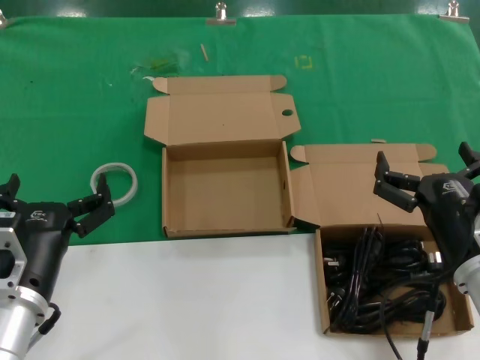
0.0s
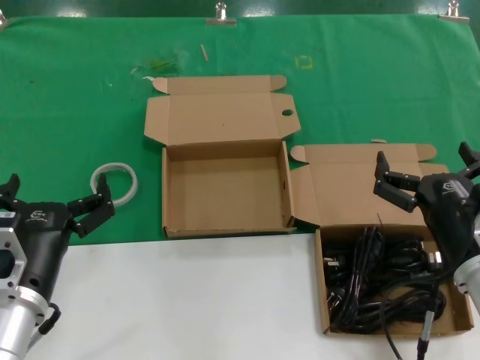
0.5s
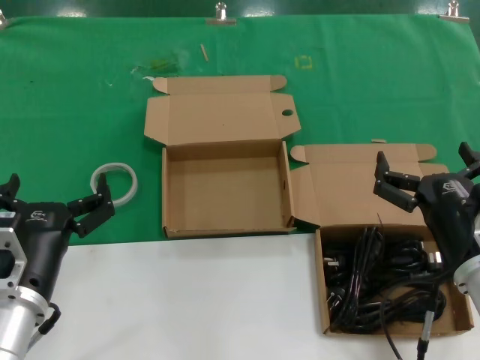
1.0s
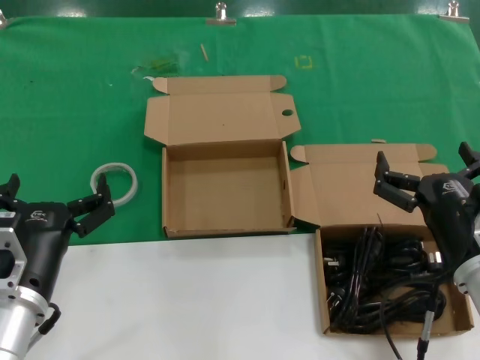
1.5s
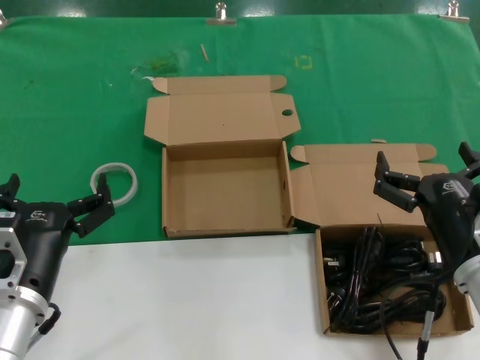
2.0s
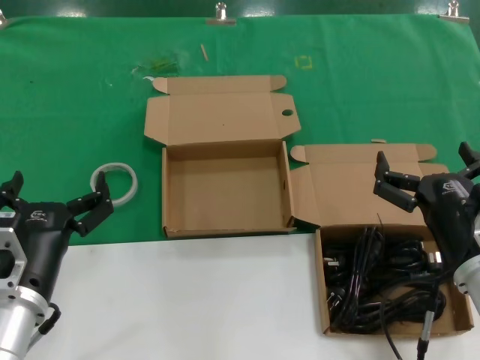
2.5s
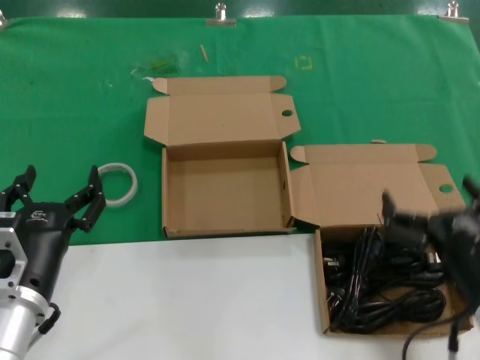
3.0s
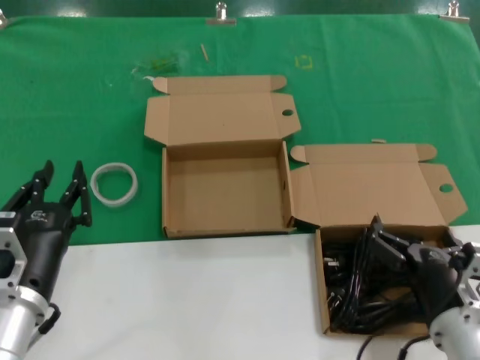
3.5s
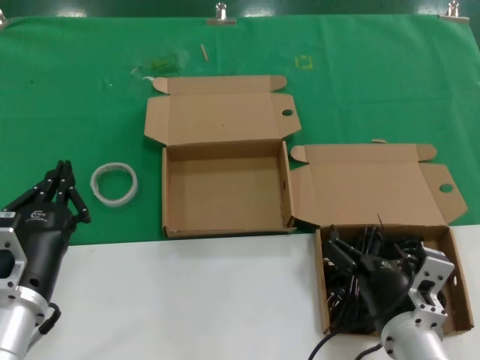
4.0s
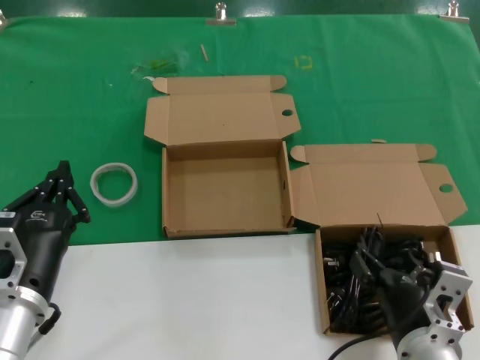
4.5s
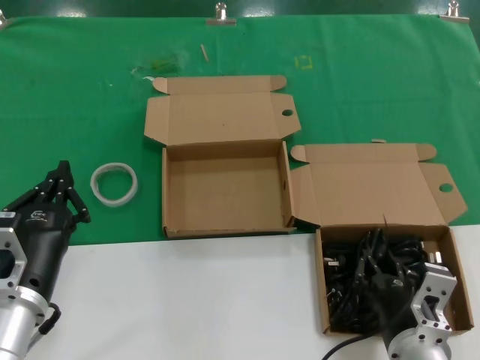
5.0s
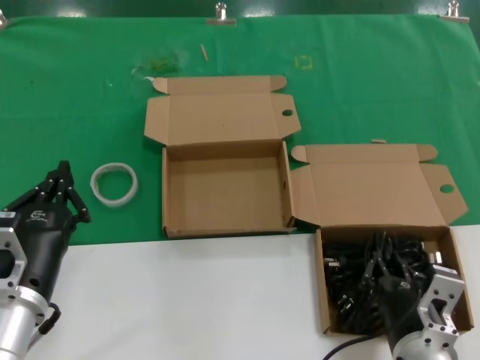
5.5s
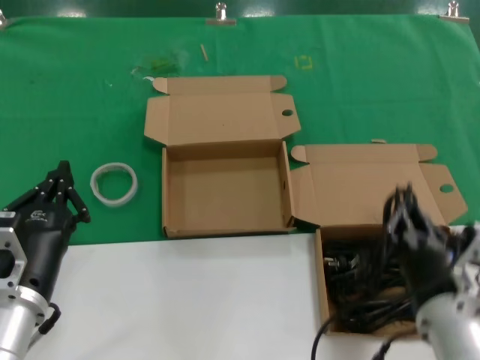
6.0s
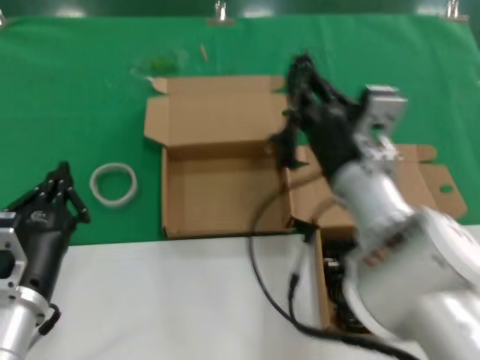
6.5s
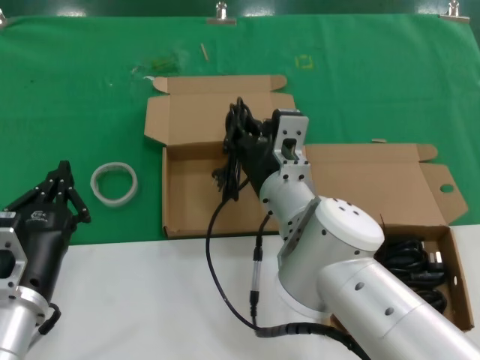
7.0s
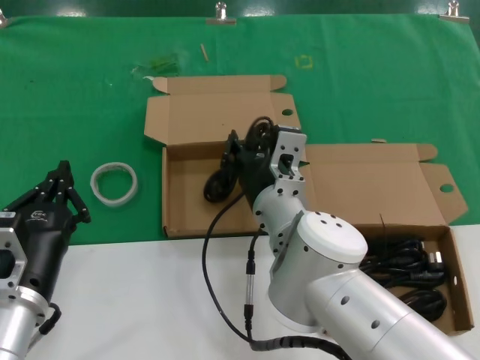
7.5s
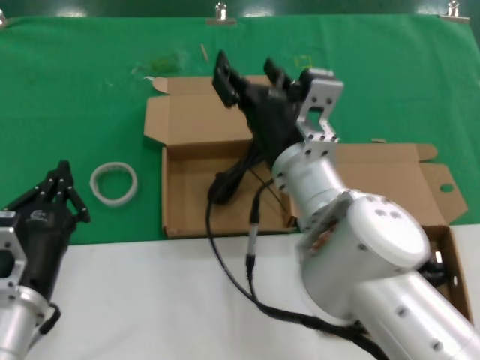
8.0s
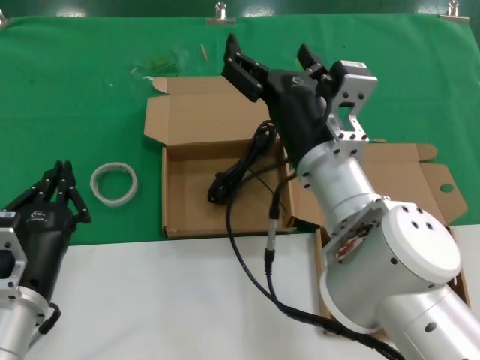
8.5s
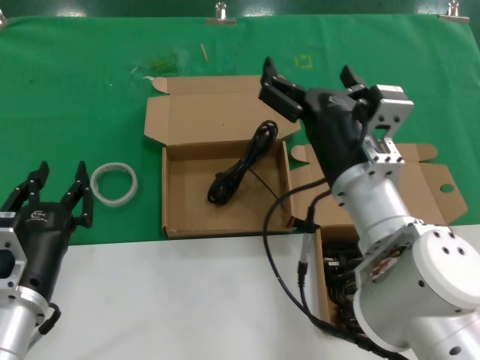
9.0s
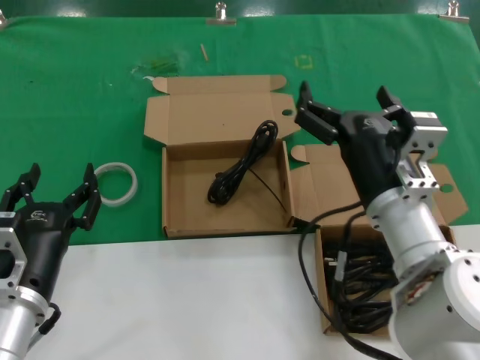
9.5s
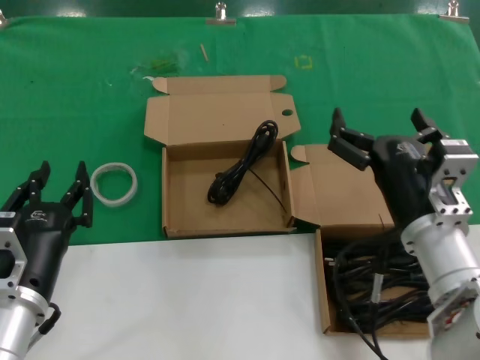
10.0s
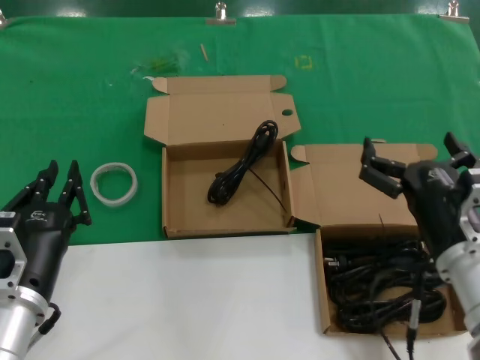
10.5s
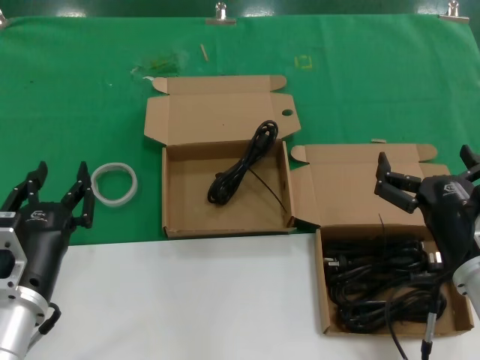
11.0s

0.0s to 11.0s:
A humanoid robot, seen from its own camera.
Task of the whole recording: Pick up the power cord from the box containing it and place it in another box.
Step, 0.0s to 5.5s: Grasp the data cable.
Step, 6.0s to 8.0s: Place the data cable in the another box.
0.0s to 2.0s: Both hands stay put.
2.0s to 3.5s: The right hand moves downward, approximately 5 cm.
3.5s to 5.5s: The right hand travels to the left by approximately 5 cm.
5.5s to 7.5s: The right hand travels forward, to the left and upward by approximately 25 cm.
7.5s to 9.0s: The right hand moves to the right, upward and backward, about 10 cm.
9.0s to 11.0s: The right hand is displaced to the right, downward and backward by approximately 15 cm.
